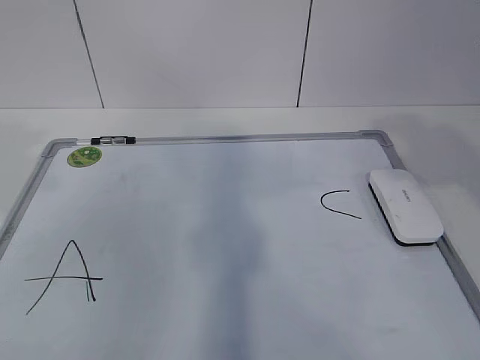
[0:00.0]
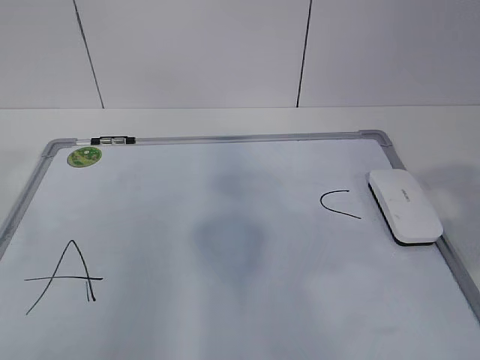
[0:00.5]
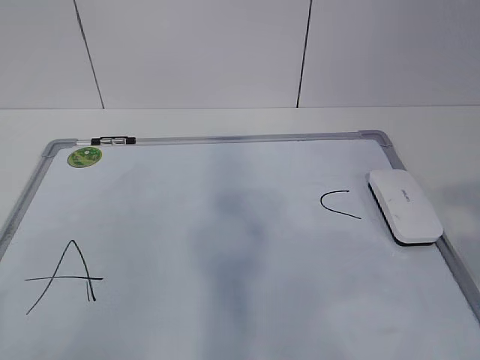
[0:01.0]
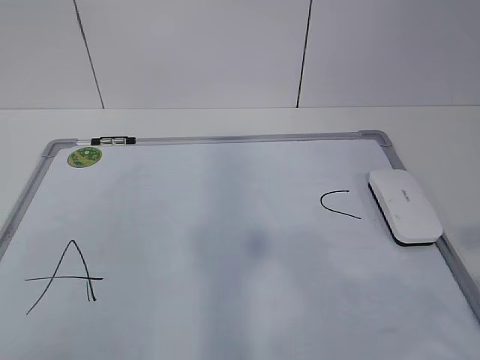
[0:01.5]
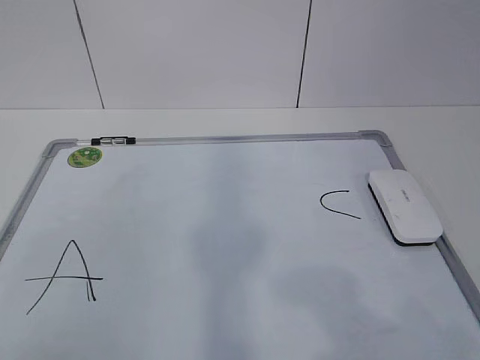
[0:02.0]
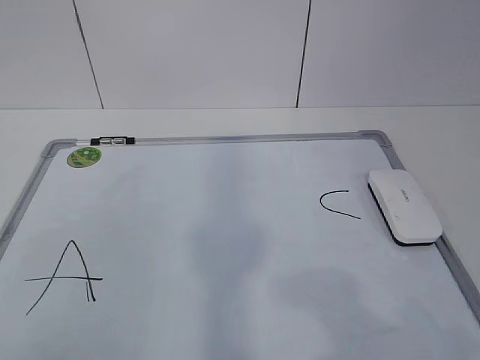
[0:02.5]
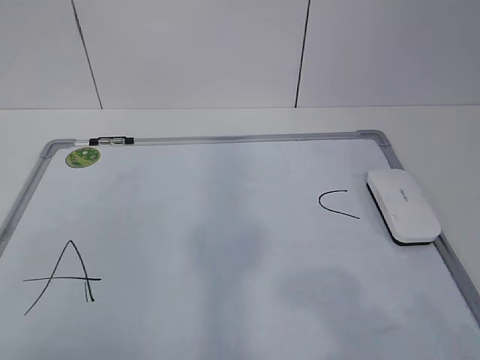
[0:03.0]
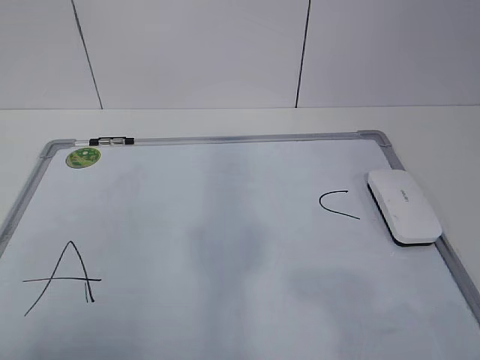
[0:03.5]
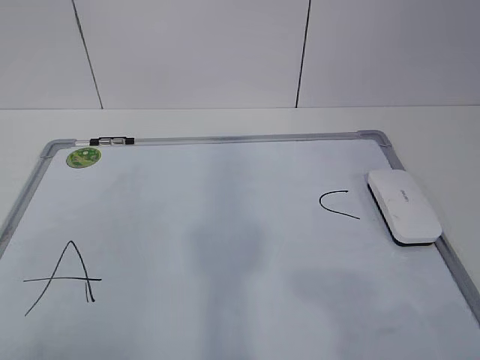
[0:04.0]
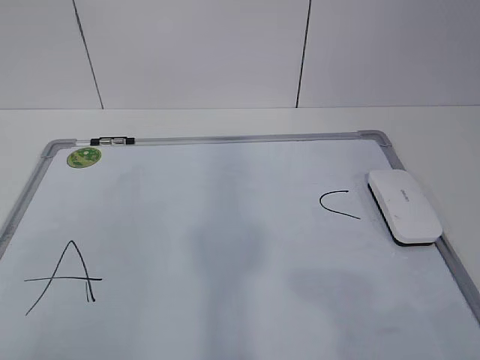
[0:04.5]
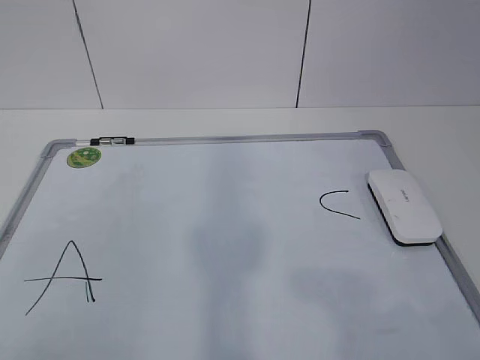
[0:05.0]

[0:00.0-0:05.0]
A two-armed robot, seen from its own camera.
Task of the whole recording: pick up the eraser on the blackboard and erase the letter "B".
0:00.0 to 0:02.5: The right gripper heads backward and downward, covering about 20 cm, while the left gripper travels backward by about 20 cm.

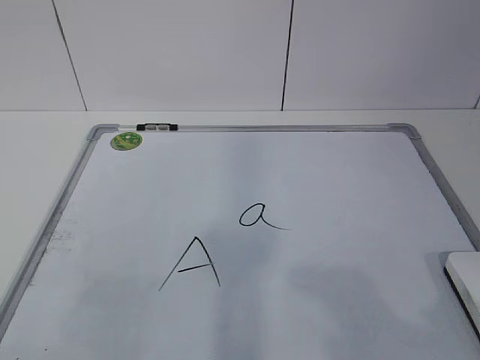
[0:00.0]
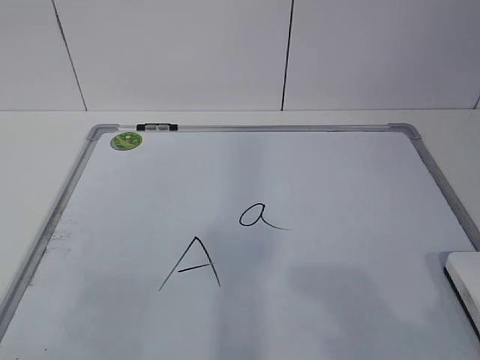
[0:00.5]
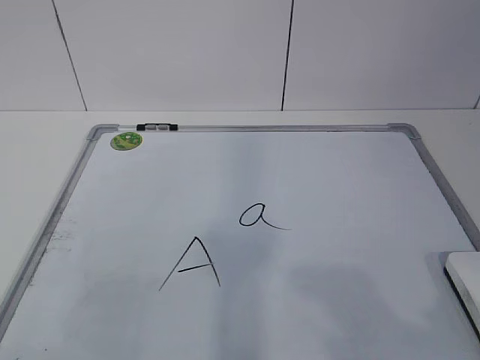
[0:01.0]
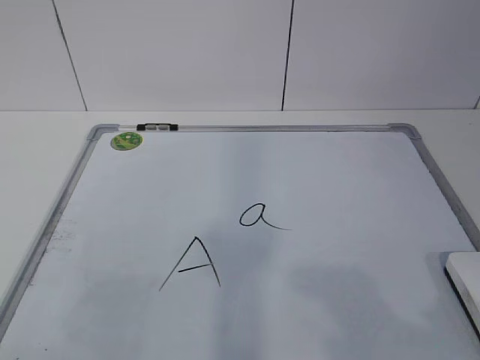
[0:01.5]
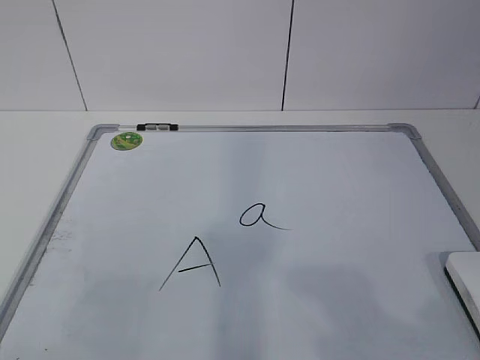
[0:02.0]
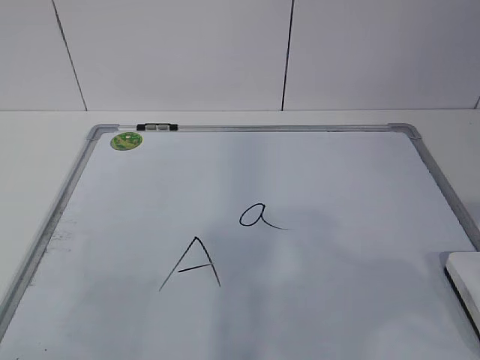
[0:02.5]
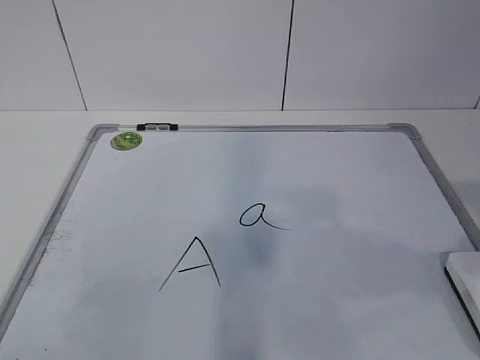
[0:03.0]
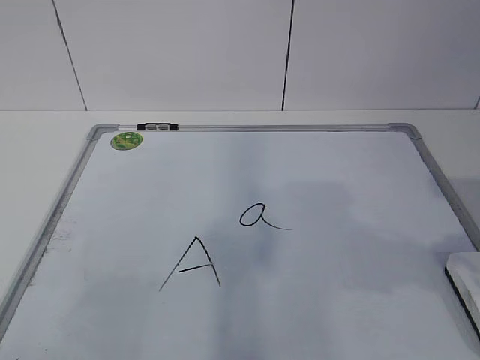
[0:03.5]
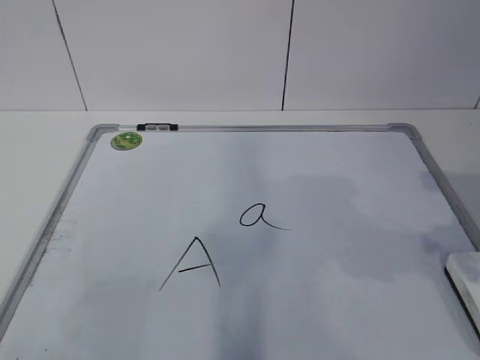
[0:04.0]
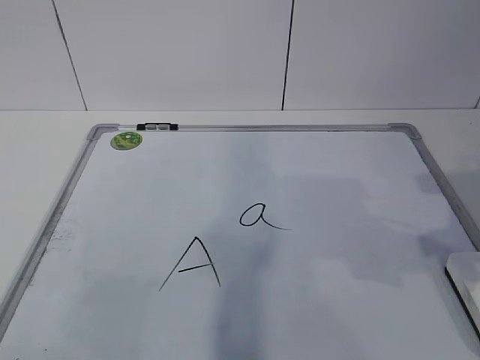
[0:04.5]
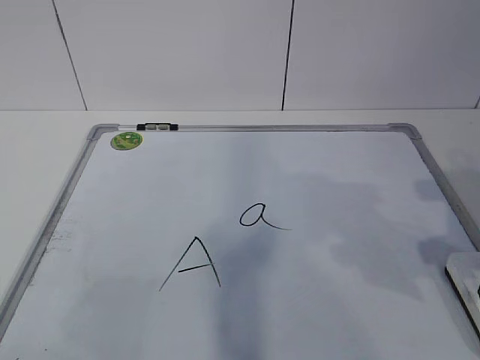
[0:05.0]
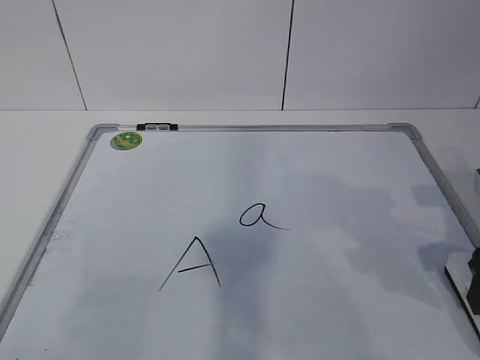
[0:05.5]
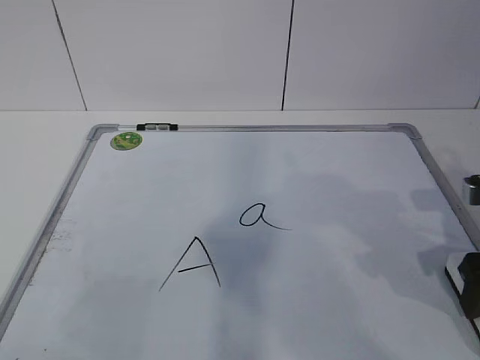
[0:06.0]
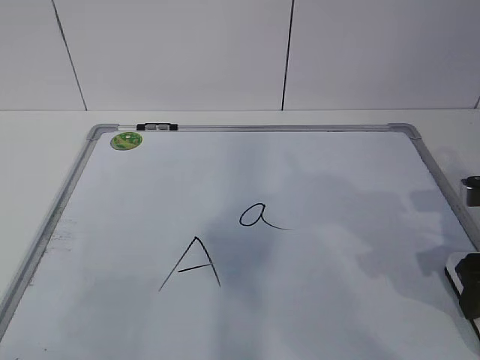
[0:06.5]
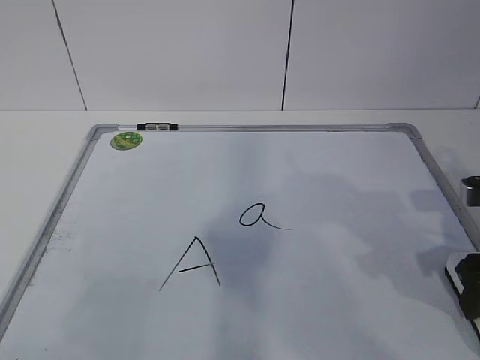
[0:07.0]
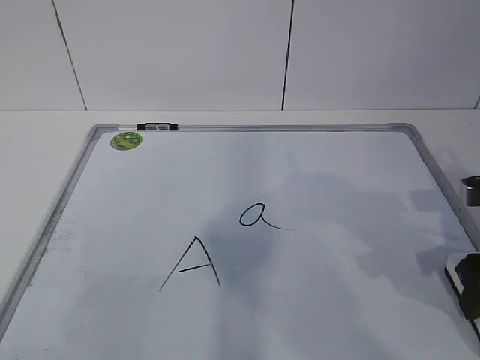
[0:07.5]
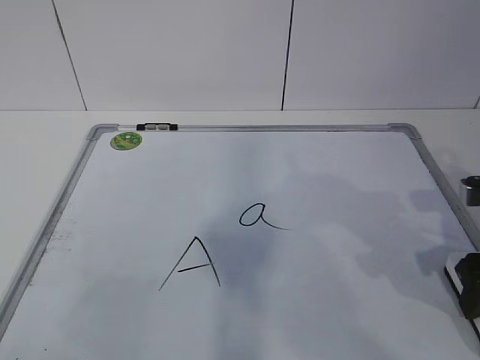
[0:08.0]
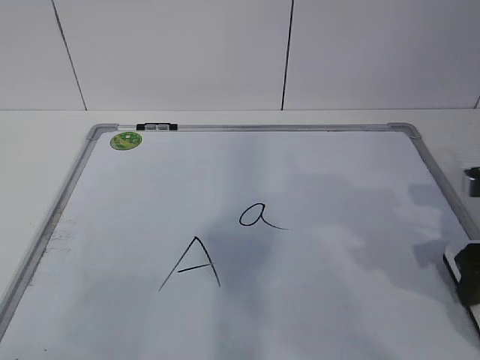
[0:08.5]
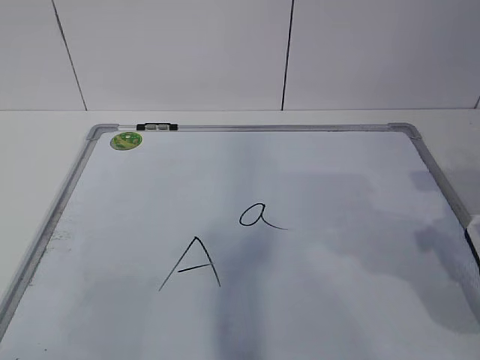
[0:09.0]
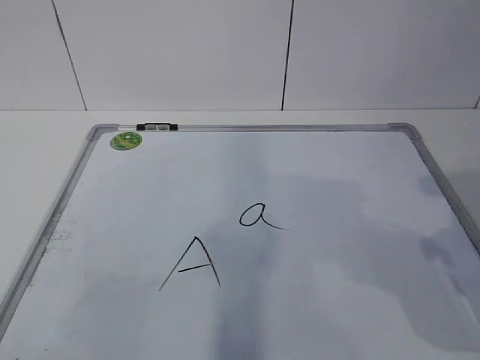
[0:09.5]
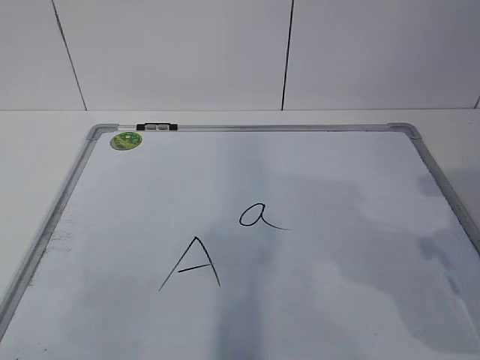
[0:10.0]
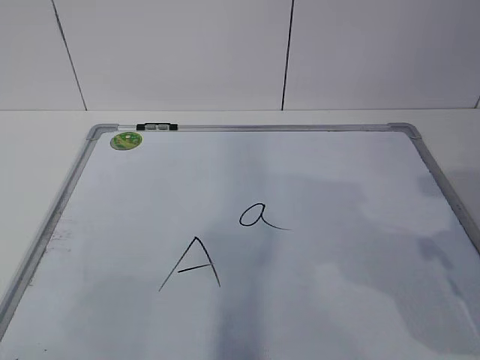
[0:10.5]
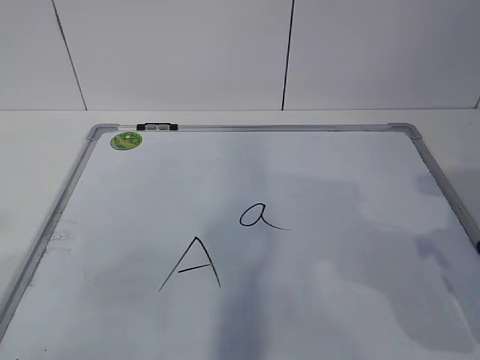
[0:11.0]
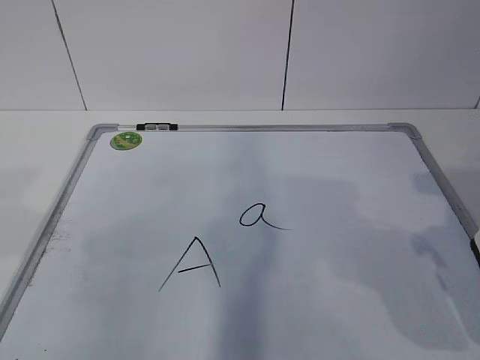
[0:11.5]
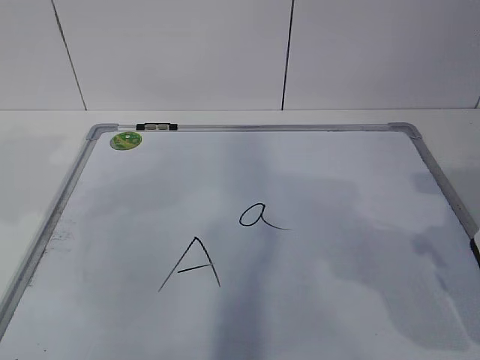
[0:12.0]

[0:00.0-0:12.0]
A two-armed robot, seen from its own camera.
Task of the whole recording: pick up the eraser on the blackboard and erase the letter "a".
0:02.0 to 0:04.0: The right gripper travels forward by approximately 20 cm.
0:04.0 to 0:06.0: The right gripper goes approximately 10 cm downward and forward, and opens up.
0:08.0 to 0:10.0: The right gripper moves upward and backward, approximately 10 cm.

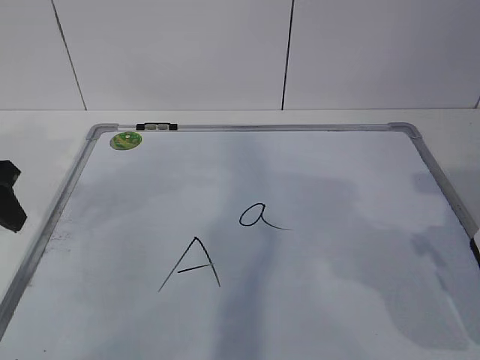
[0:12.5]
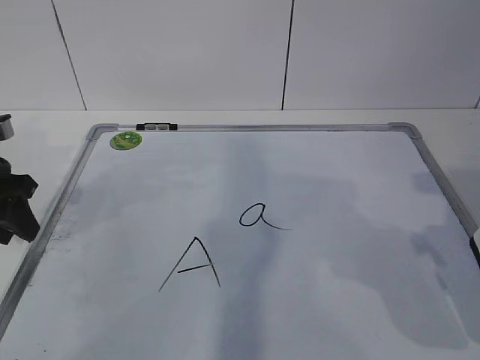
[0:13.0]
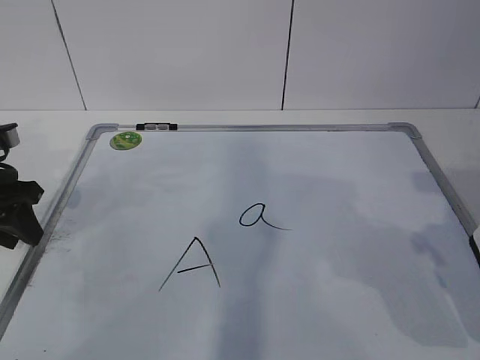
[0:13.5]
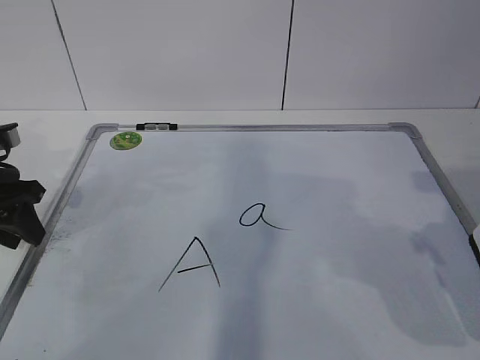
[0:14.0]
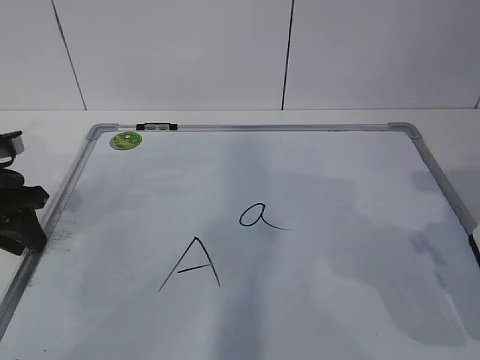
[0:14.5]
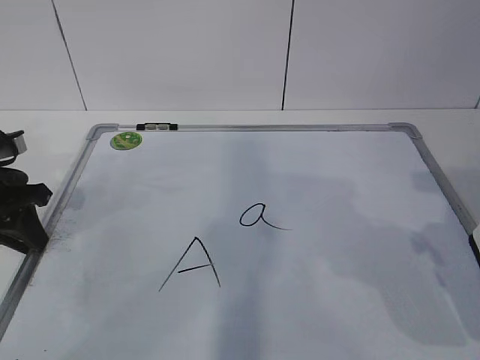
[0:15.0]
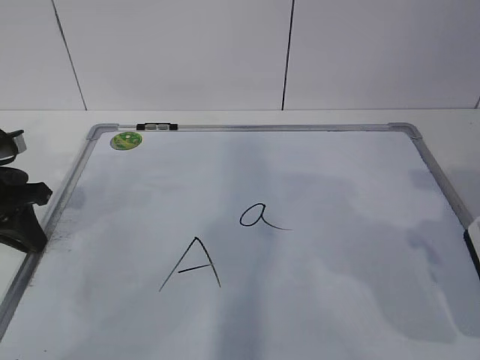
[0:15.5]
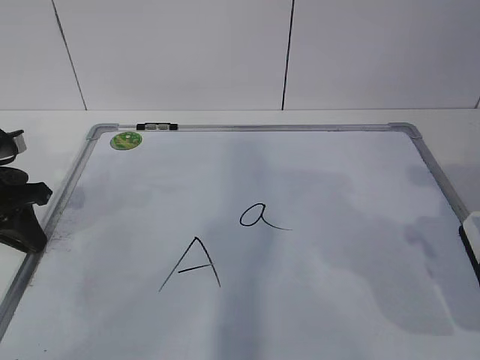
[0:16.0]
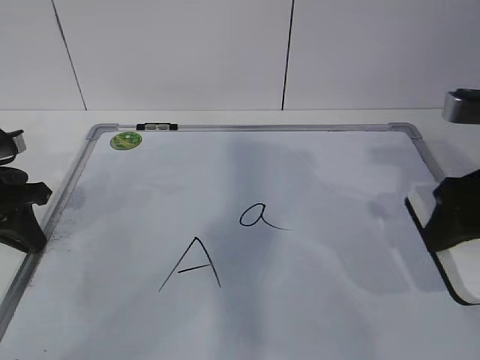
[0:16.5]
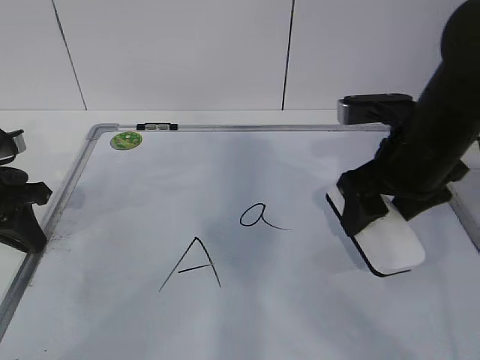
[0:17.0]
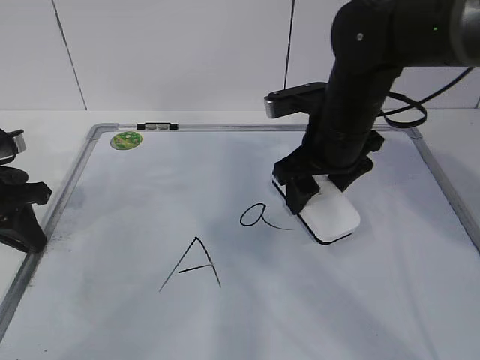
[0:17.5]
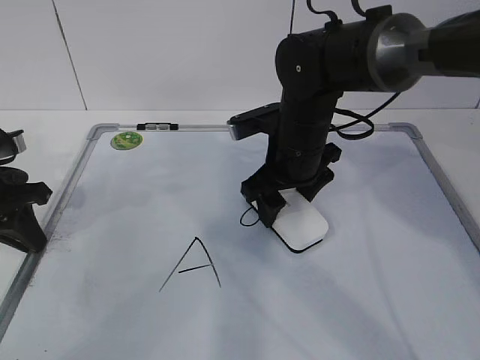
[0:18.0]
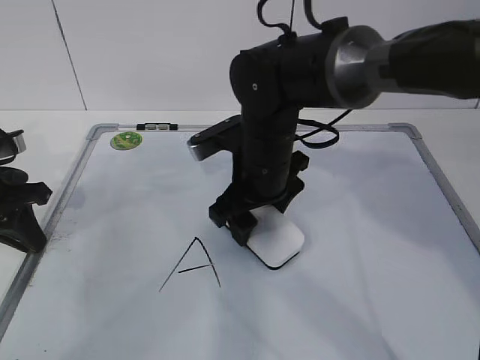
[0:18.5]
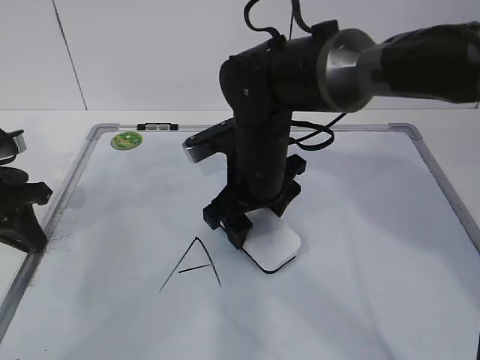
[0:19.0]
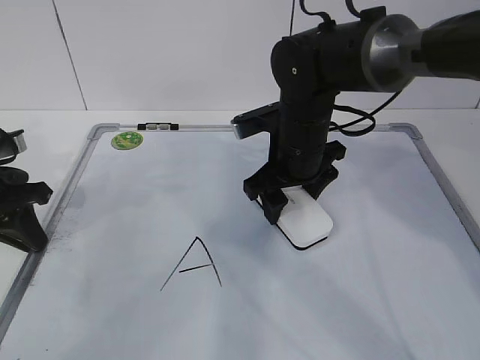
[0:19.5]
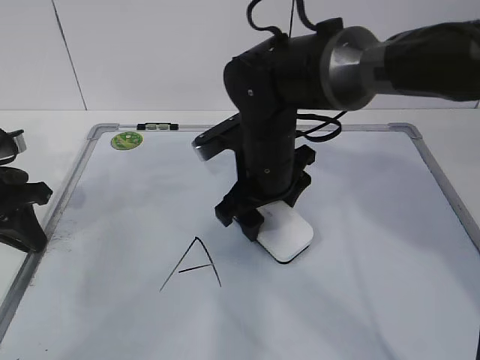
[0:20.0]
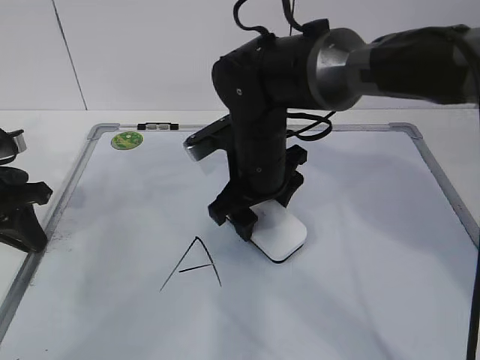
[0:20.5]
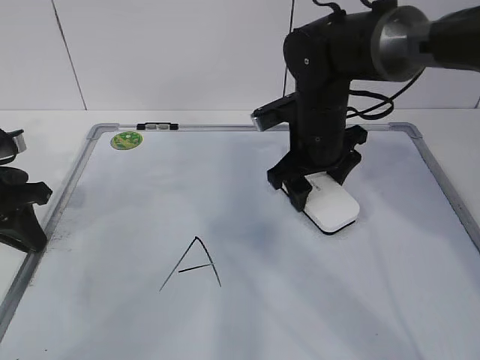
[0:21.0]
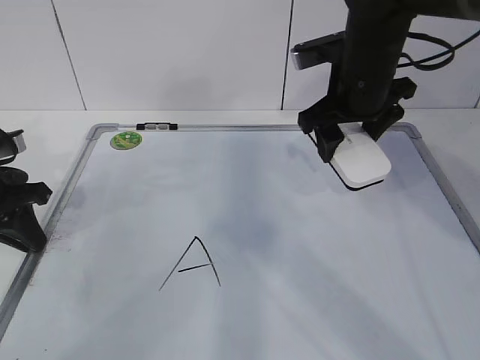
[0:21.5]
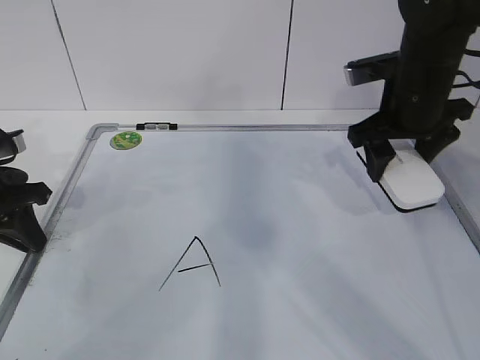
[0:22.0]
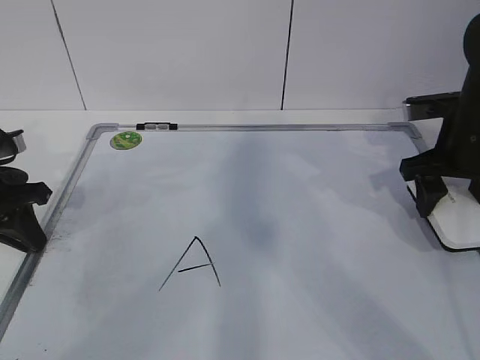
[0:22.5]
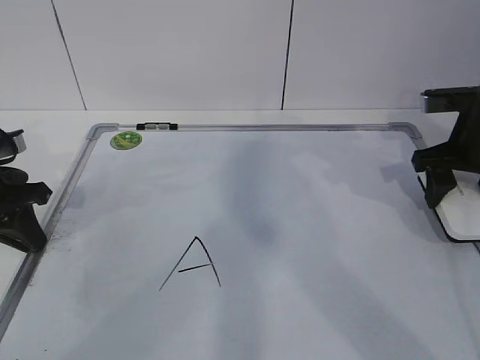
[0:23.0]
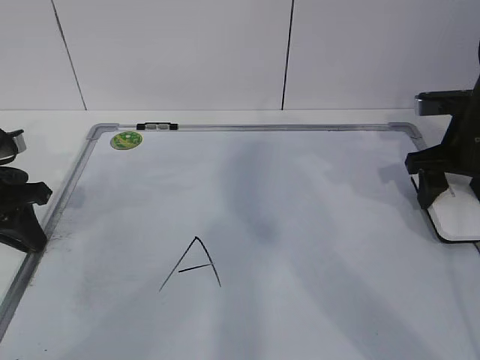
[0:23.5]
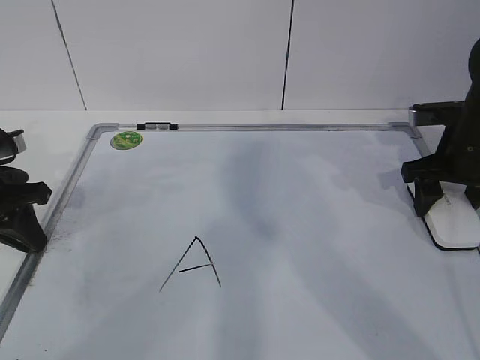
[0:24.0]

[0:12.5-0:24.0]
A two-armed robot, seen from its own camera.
Task of the whole recording: pick up the eraser on the blackboard and erase the letter "a".
Step, 0:13.0 to 0:17.0: Erase the letter a with your right hand.
Step, 0:17.5 to 0:20.5: Put down the eraser with your right hand.
0:12.5 to 0:14.5: The left gripper moves downward, roughly 5 cm.
0:14.5 to 0:16.5: The left gripper closes up, while the right gripper travels forward by about 5 cm.
0:16.5 to 0:18.5: The right gripper heads to the left, forward and downward, covering about 25 cm.
0:18.5 to 0:20.0: The grippers make only small movements.
0:20.0 to 0:22.0: The right gripper heads to the right and upward, covering some 15 cm.
0:22.0 to 0:24.0: The right gripper heads to the right and downward, covering about 10 cm.
